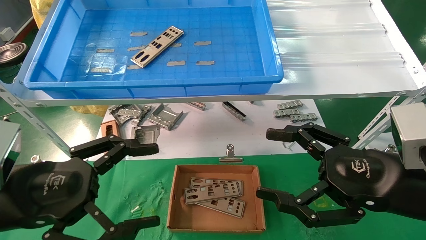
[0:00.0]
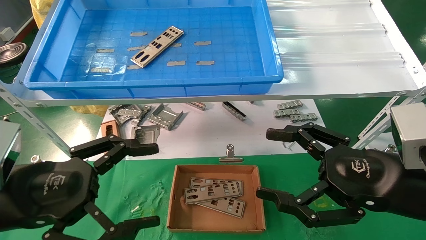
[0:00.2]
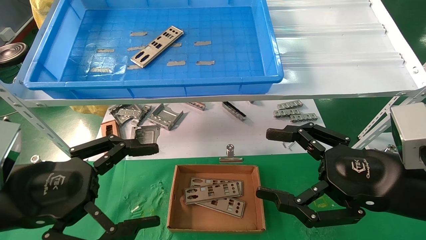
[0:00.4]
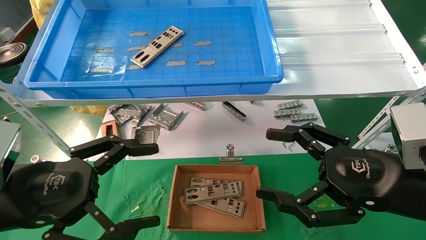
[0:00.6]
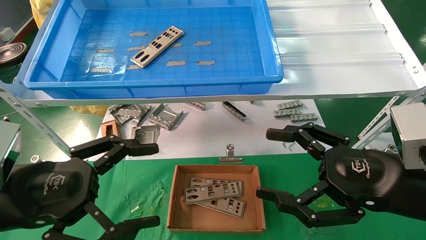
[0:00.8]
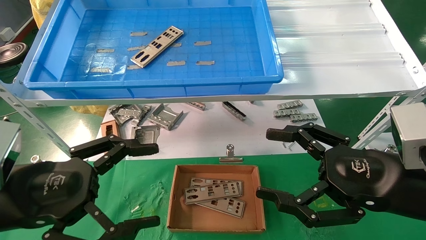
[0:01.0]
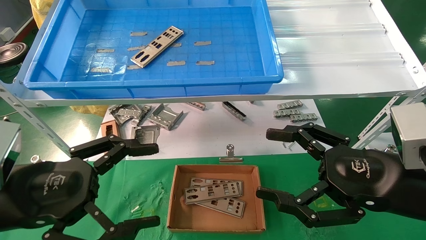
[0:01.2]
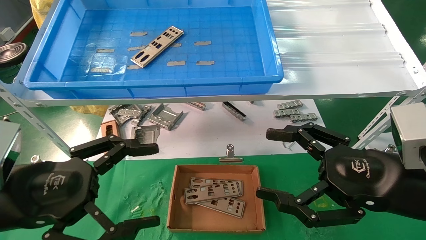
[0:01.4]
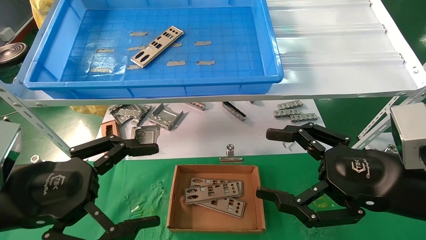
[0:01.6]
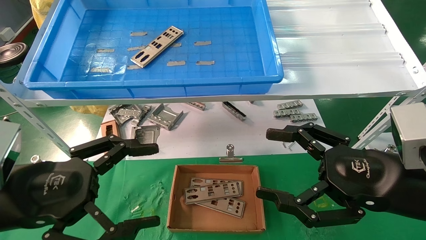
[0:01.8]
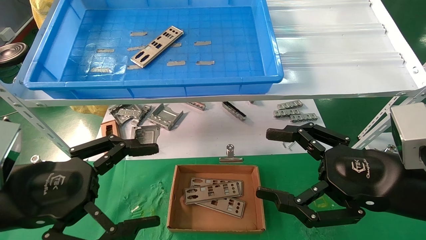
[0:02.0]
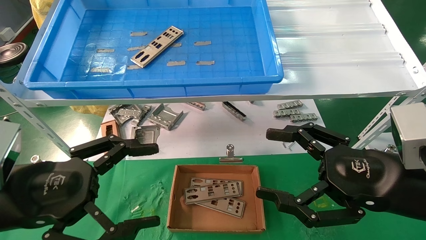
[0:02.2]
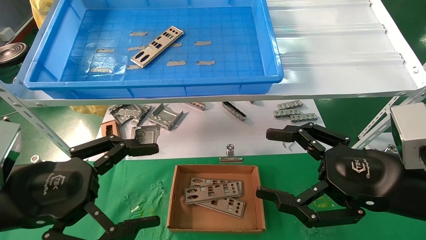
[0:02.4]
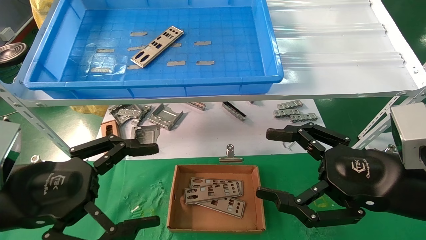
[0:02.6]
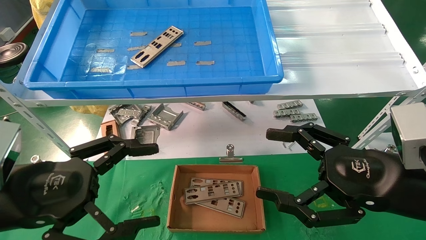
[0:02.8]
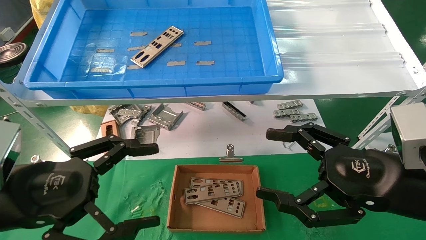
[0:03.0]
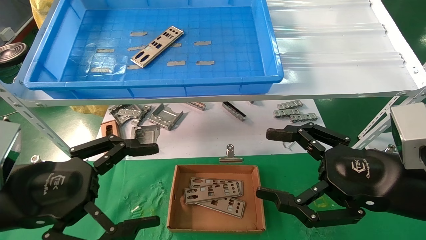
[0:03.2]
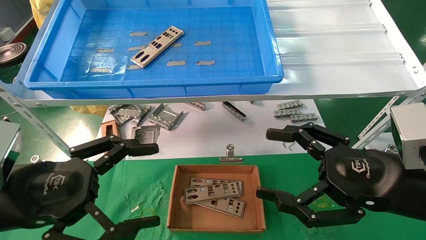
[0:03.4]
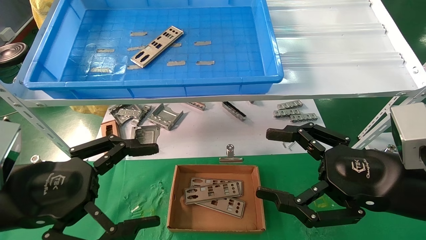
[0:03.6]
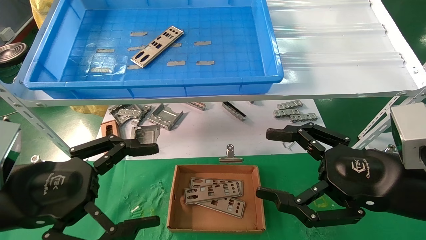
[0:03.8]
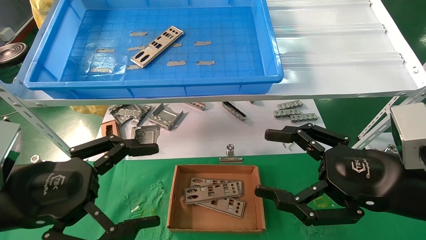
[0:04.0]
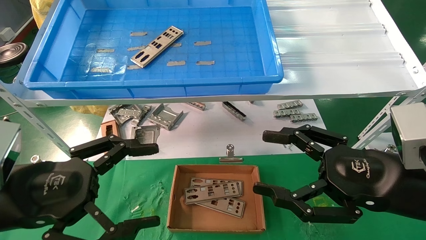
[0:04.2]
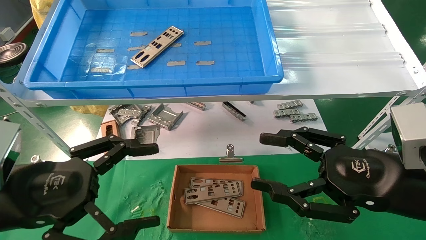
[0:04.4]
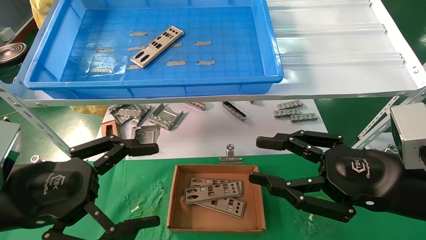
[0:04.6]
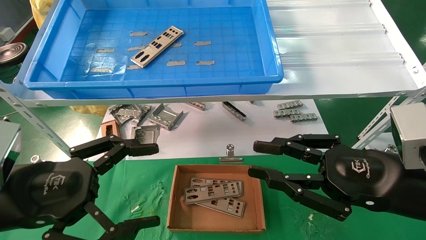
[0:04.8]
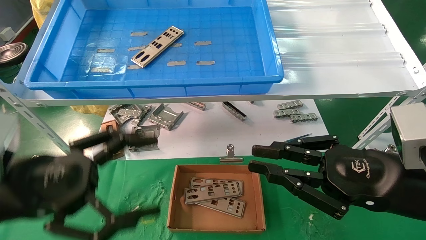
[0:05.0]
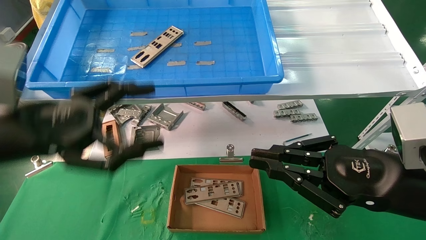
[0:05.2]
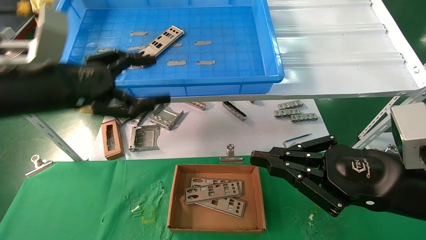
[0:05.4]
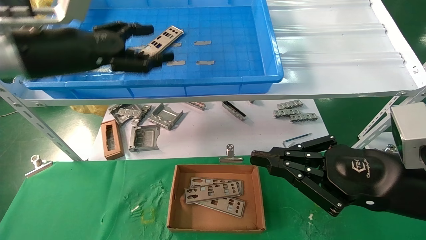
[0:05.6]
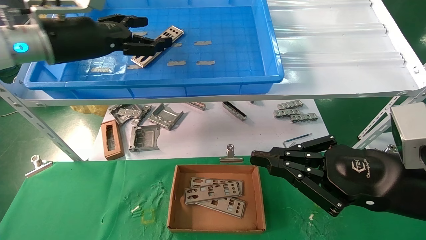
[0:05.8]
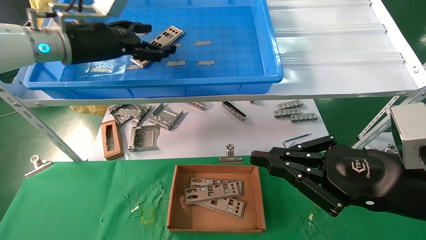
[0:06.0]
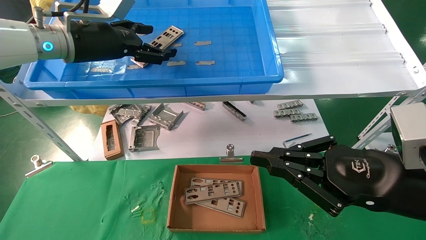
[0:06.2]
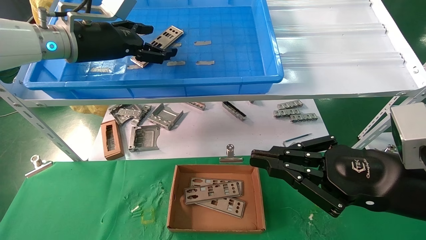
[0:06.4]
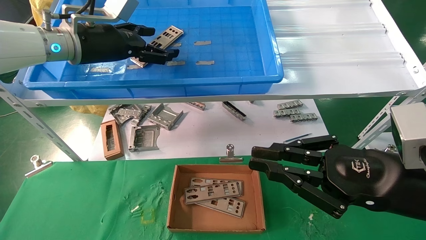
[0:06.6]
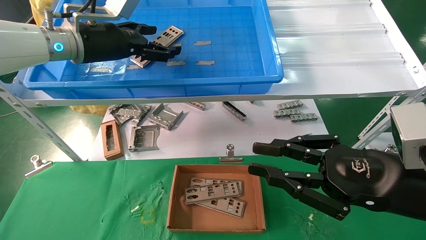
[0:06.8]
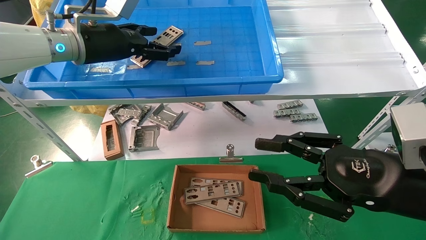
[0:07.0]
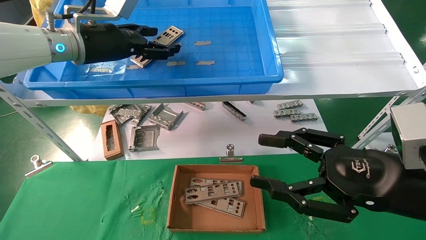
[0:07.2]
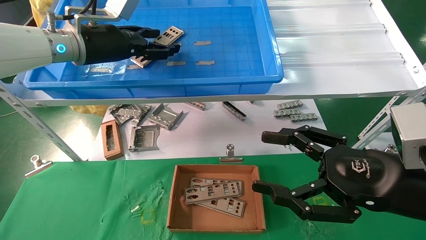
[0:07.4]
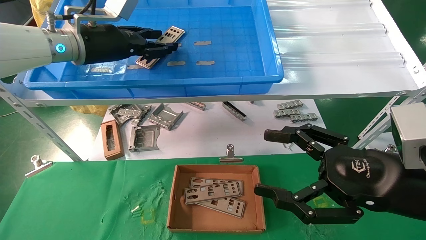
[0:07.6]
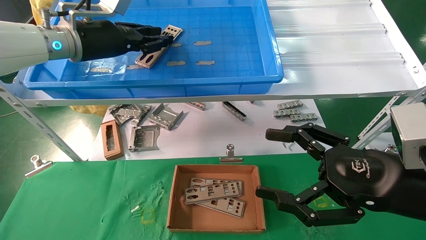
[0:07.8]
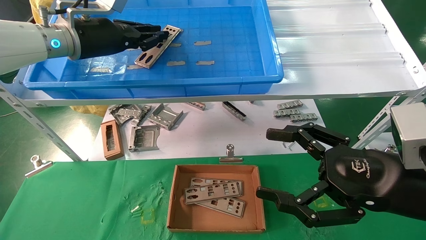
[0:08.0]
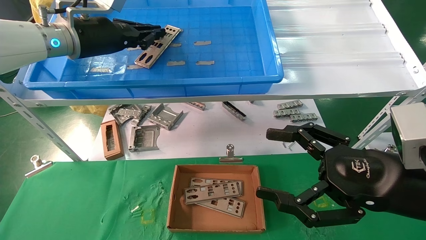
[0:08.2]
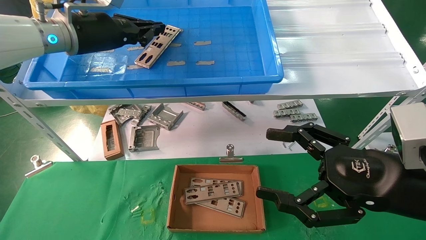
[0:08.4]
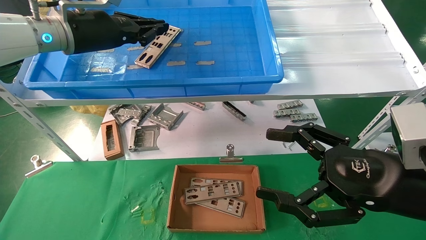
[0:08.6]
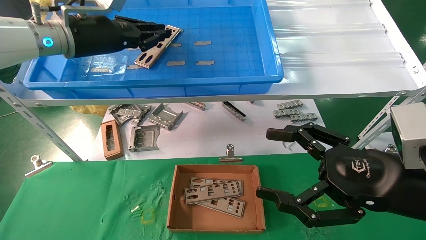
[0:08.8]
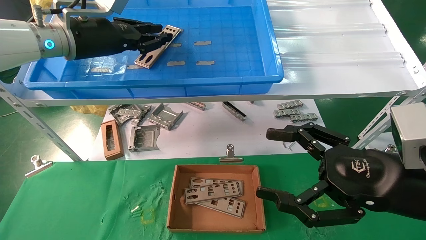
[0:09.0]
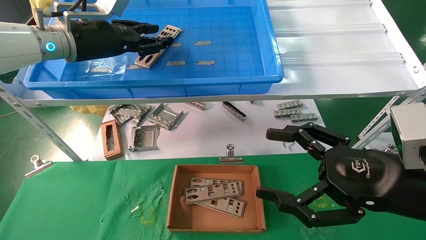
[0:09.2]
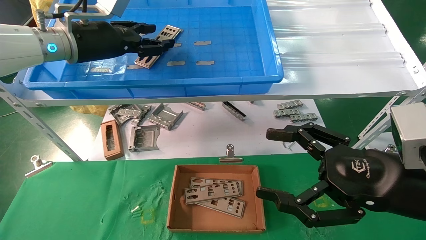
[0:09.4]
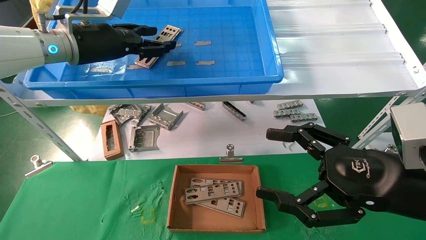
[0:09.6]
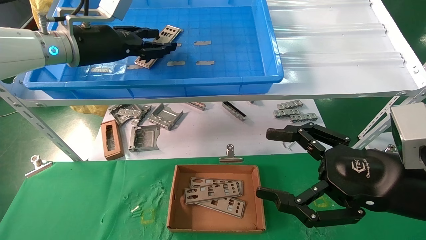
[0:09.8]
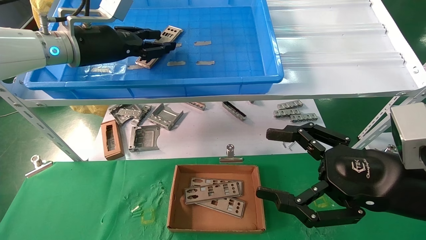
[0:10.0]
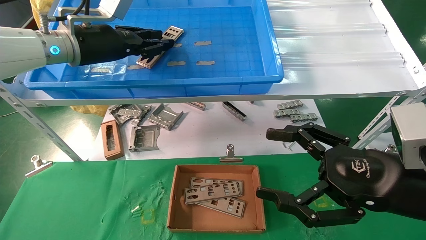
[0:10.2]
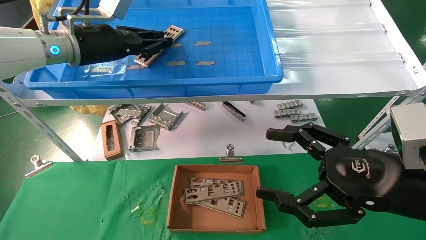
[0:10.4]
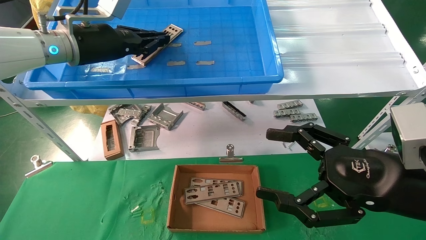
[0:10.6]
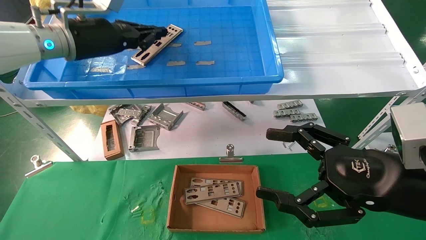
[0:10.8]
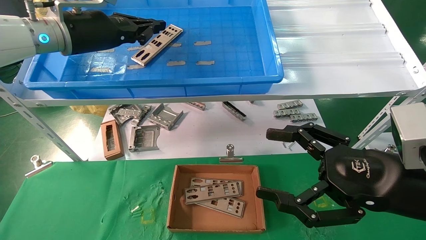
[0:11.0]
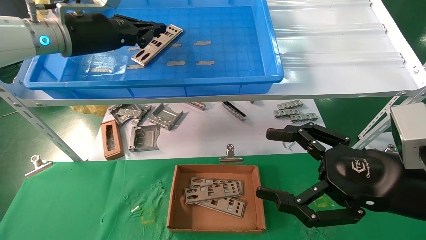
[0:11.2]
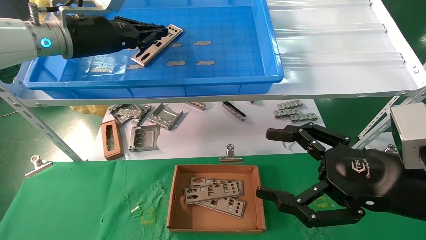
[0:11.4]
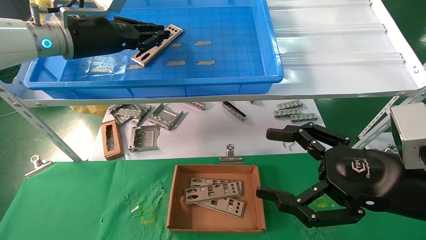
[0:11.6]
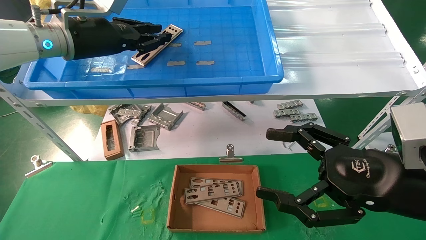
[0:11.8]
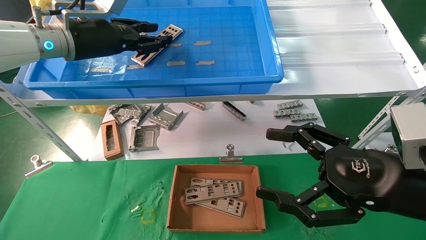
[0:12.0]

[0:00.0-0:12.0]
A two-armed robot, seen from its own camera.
Task of the whole recording: pick up the parts on the tray and put them in the cardboard box.
0:00.0 to 0:04.4: The two grippers keep their place.
0:04.4 to 0:06.0: The left gripper is displaced forward and upward by about 25 cm; the right gripper closes.
0:06.0 to 0:07.6: The left gripper closes. Meanwhile the right gripper opens its fingers.
0:07.6 to 0:09.0: The left gripper closes its fingers.
0:09.0 to 0:10.4: The two grippers keep their place.
0:10.4 to 0:12.0: The grippers stay close to where they were, moving slightly.

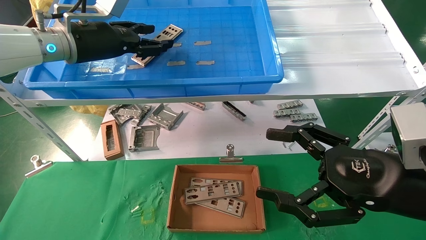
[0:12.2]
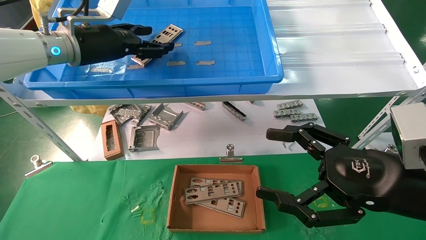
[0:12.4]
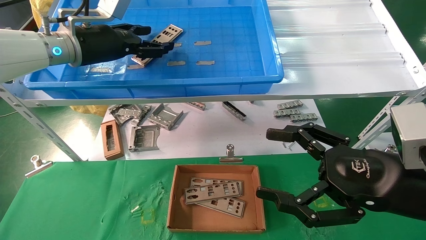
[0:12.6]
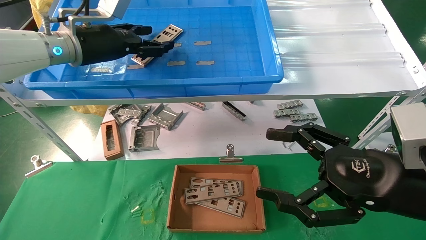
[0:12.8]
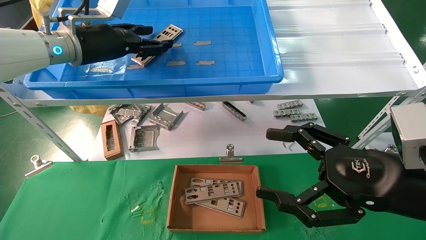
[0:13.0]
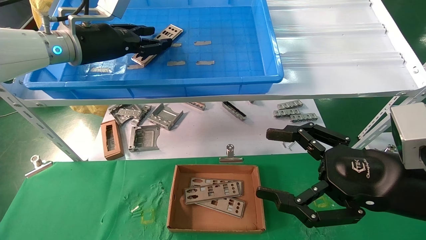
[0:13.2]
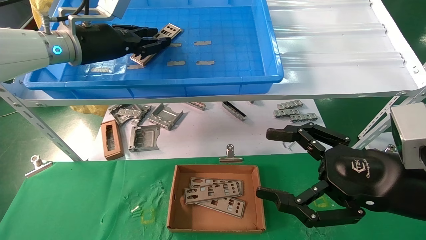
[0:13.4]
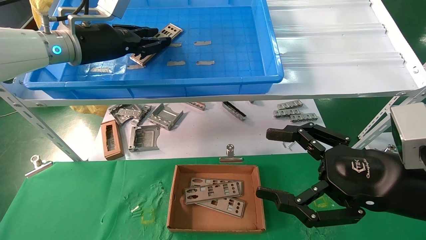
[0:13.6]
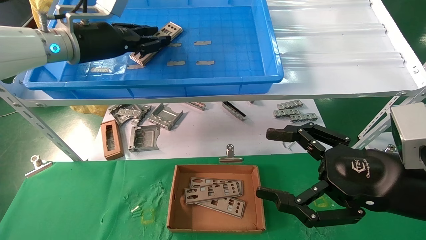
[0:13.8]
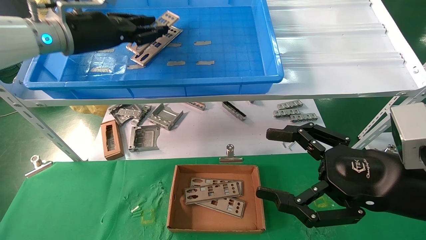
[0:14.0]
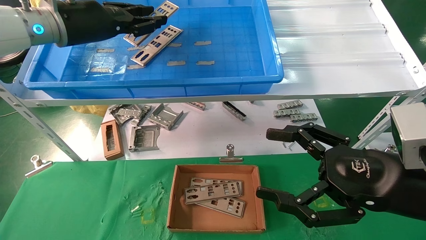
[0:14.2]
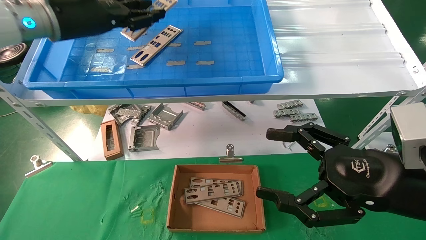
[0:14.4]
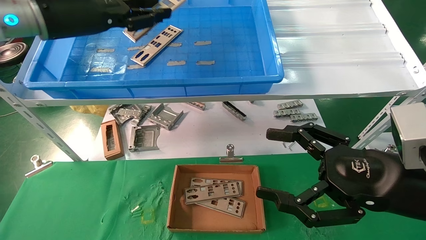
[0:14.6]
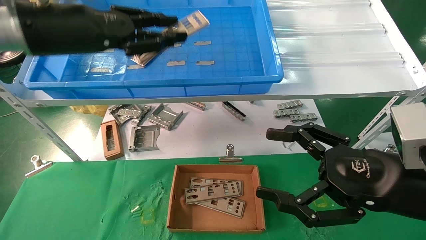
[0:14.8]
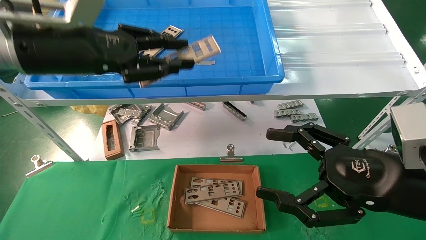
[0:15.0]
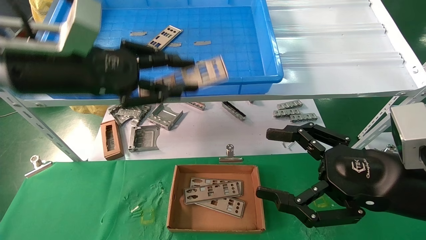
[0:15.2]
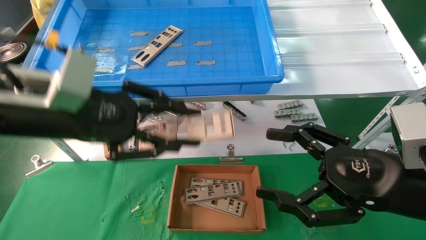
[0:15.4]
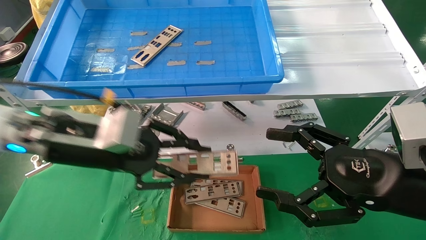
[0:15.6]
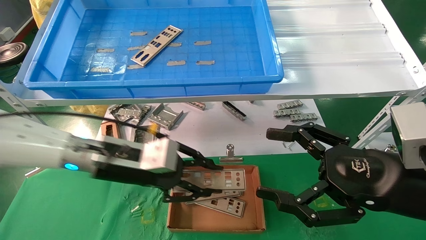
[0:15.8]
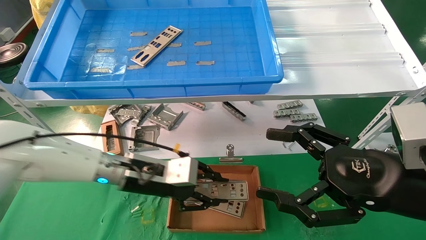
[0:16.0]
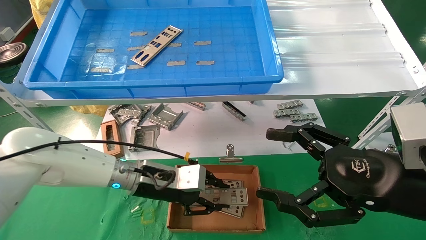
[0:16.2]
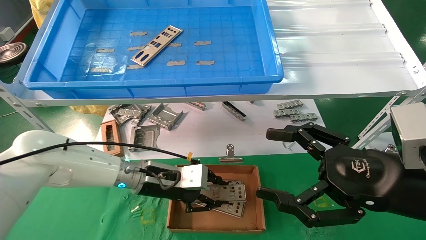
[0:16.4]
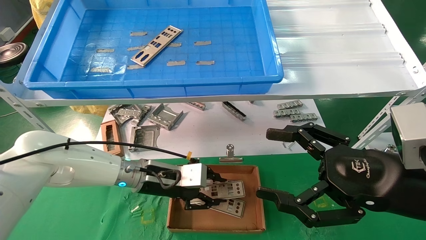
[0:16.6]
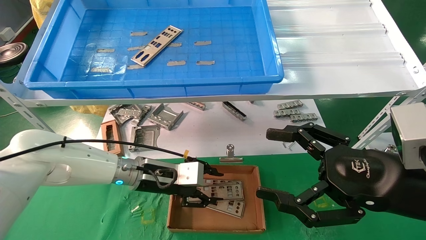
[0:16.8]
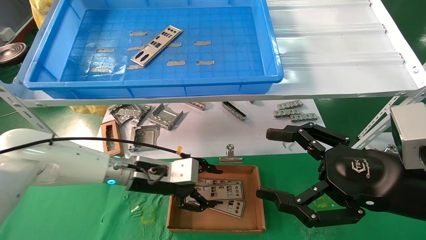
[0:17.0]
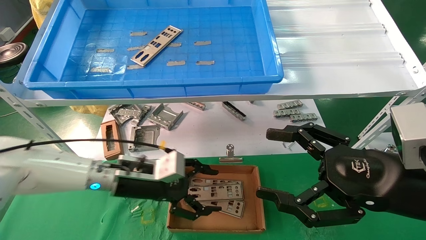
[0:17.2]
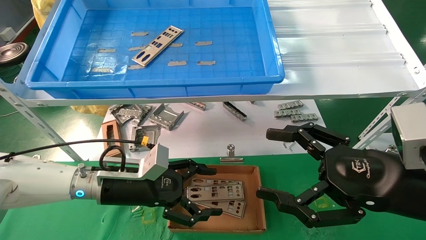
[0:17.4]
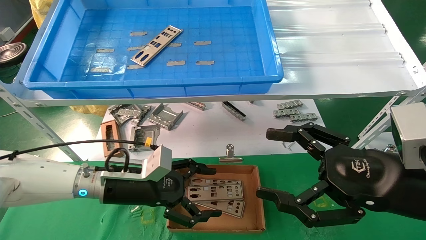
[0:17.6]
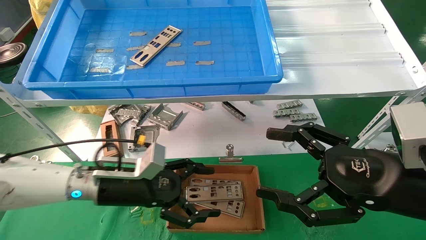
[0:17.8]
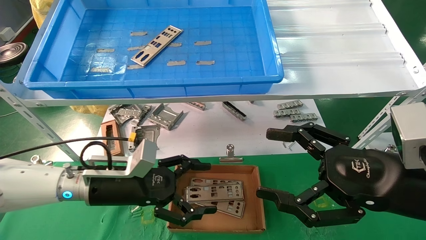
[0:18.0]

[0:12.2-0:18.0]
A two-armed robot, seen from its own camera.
Task of the whole recording: pick up the parts on the tray and put them in the cardboard box.
Step, 0:13.8 to 0:16.8: Place the IO bracket into the ingredient slot.
0:12.2 to 0:13.6: Both grippers stay put.
0:13.6 to 0:15.0: The left gripper shifts roughly 10 cm backward.
0:15.0 to 0:16.6: The left gripper goes approximately 30 cm downward and to the right.
0:16.6 to 0:18.0: The left gripper is displaced to the left and backward by approximately 10 cm, and opens its fingers.
